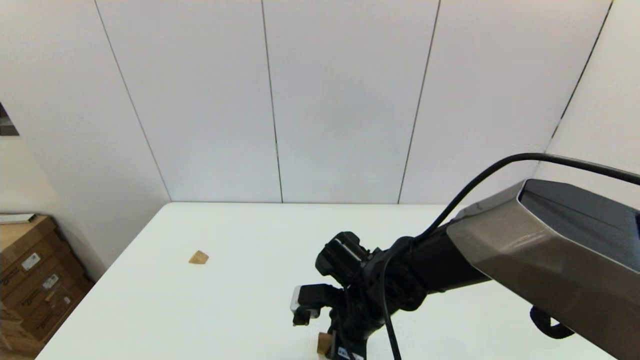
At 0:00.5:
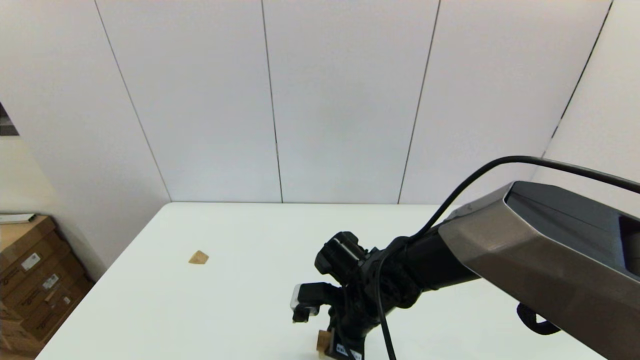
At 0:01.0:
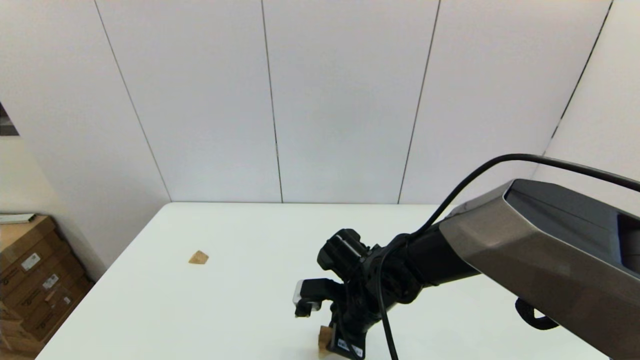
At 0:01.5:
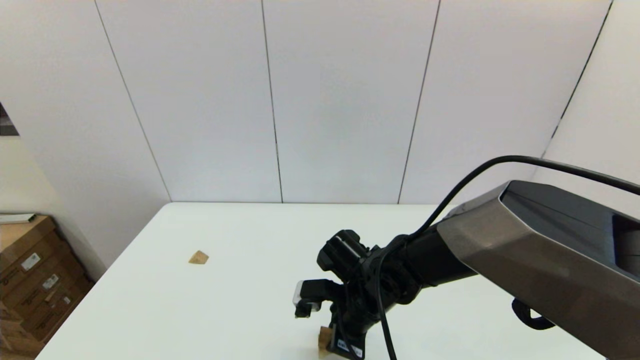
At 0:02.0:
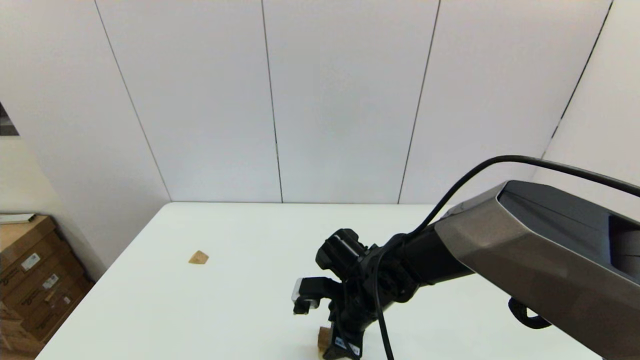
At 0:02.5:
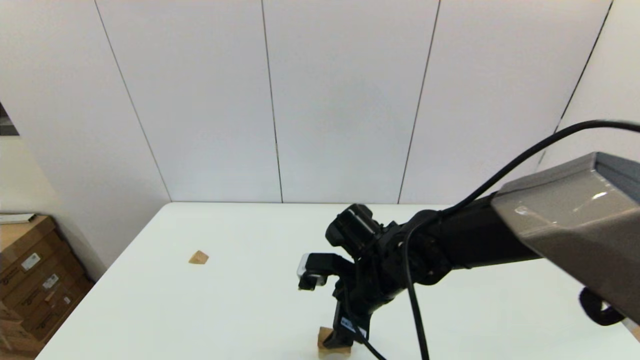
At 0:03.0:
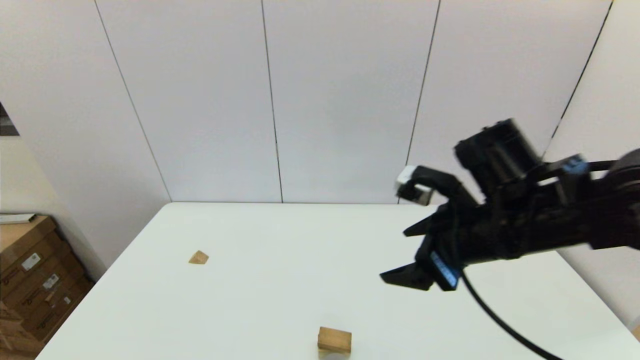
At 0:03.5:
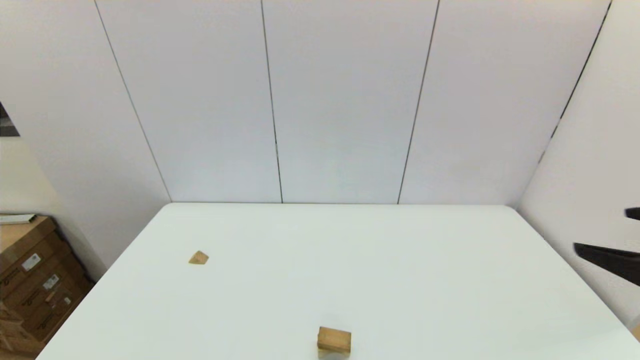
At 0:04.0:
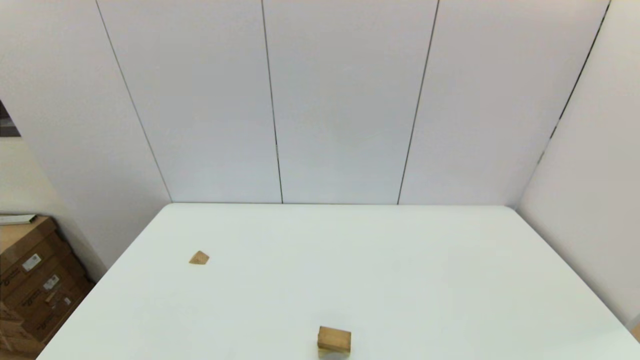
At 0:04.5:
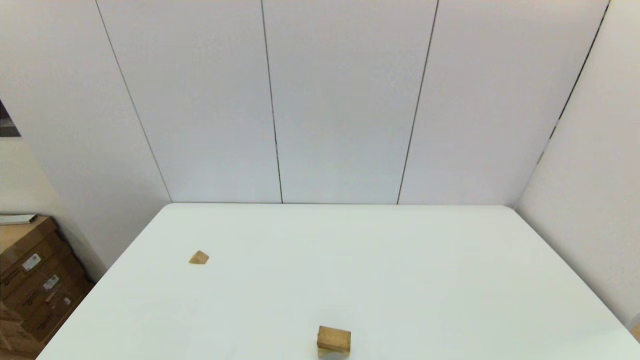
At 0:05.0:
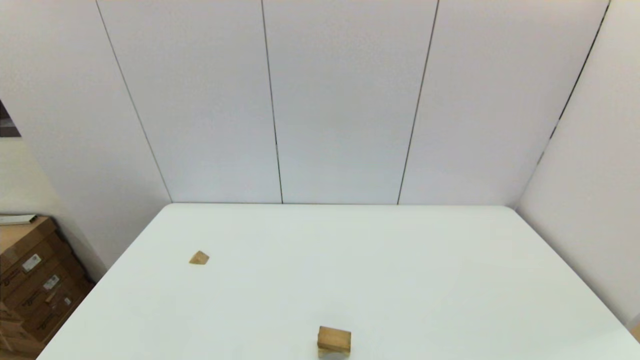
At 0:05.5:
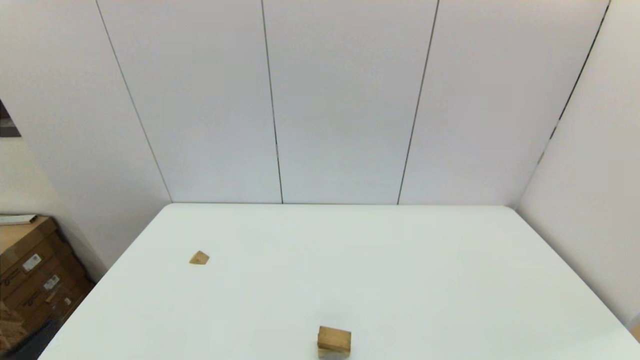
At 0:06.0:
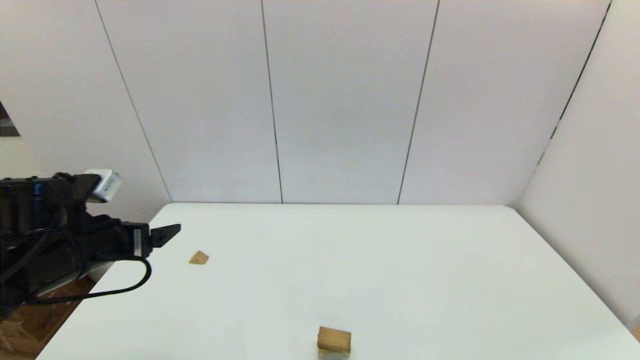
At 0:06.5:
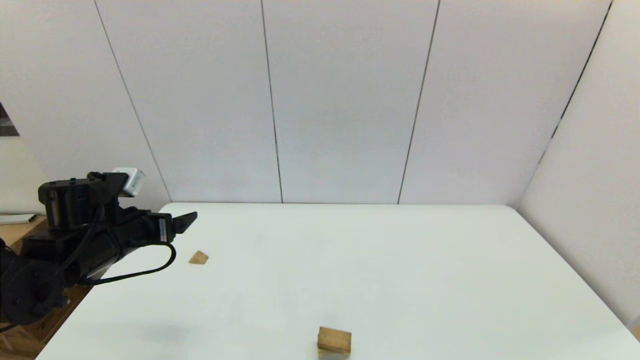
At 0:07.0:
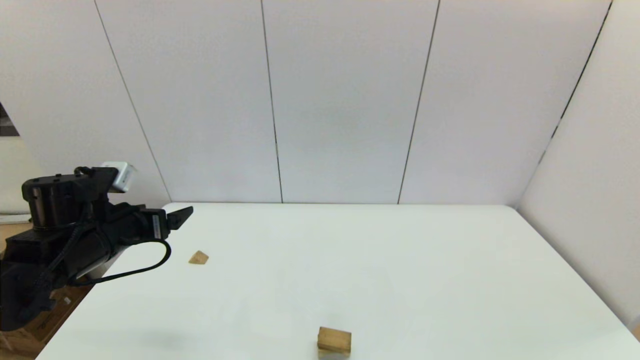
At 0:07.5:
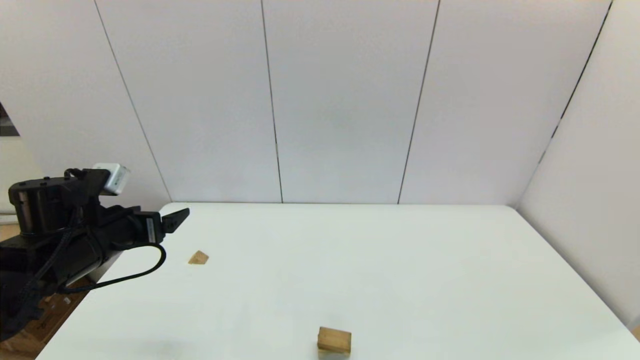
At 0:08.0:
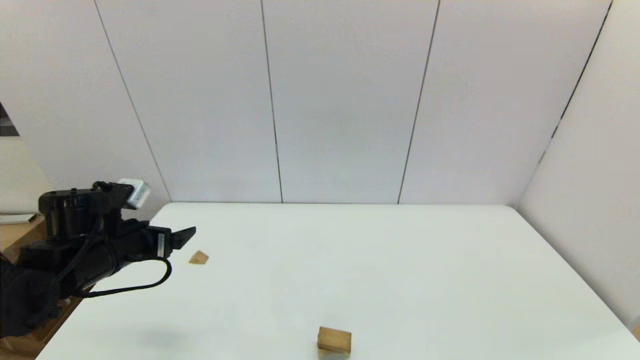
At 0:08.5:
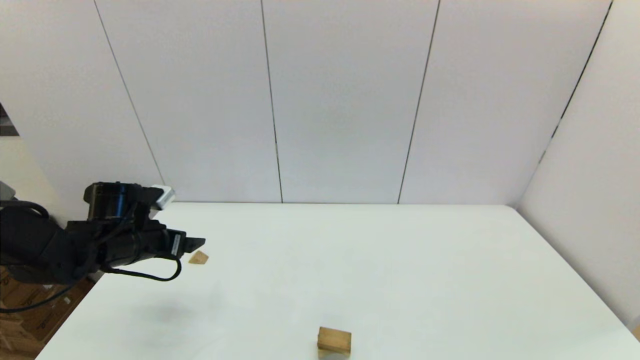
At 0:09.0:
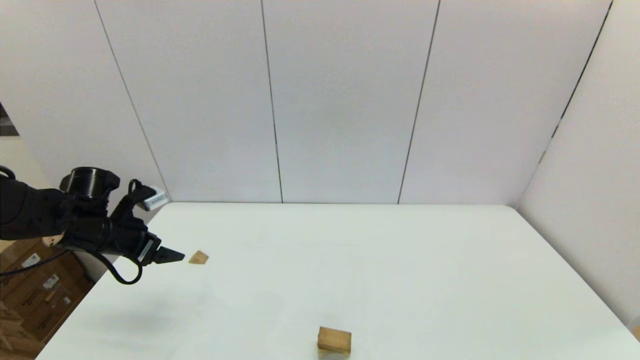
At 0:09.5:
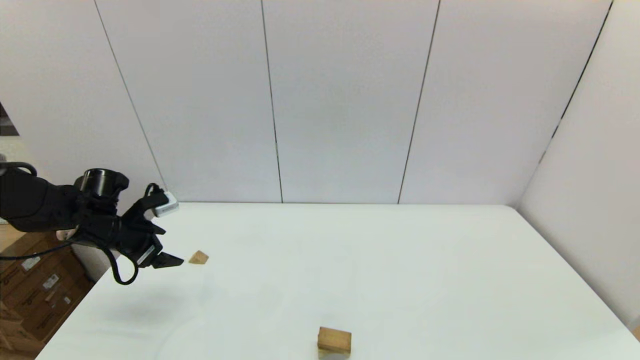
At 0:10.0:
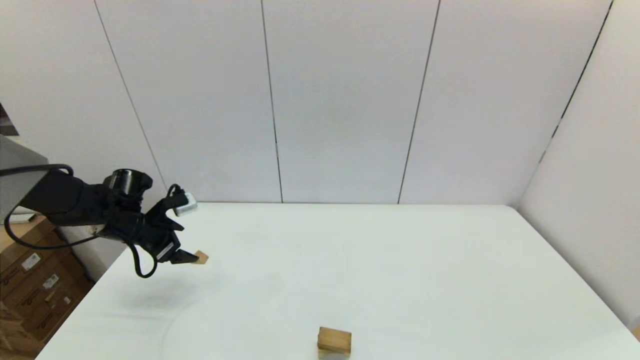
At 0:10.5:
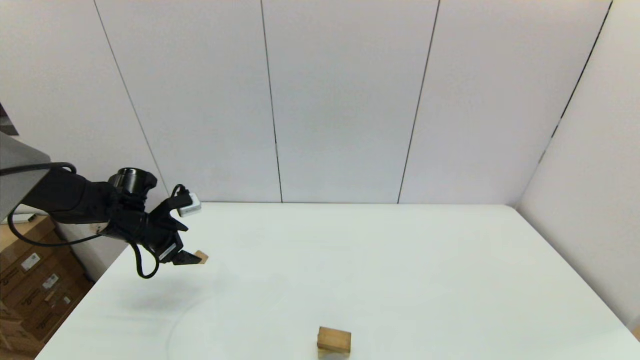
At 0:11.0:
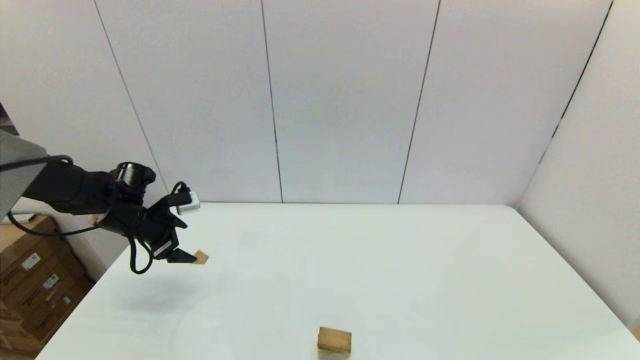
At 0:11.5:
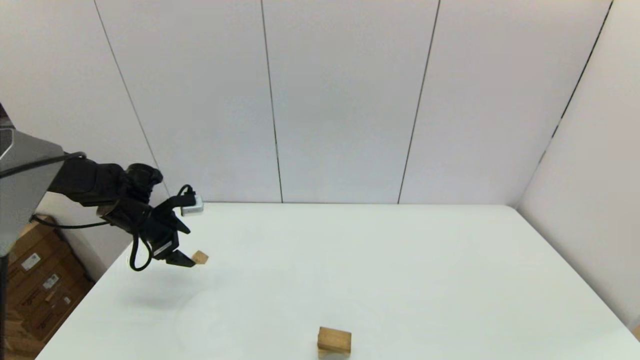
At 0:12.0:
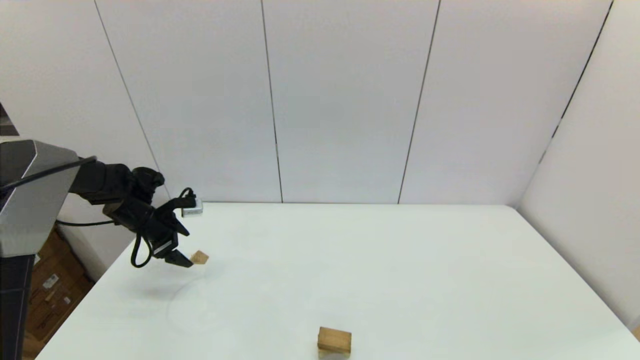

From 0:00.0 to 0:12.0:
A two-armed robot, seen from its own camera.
Task of the whole recording: place the arched building blocks in the center of the table, set up the rectangular building blocks, and then set up the triangular building blocks.
From 0:00.0 to 0:02.0: The right gripper opens.
From 0:02.0 to 0:04.0: The right gripper travels backward, to the right and upward by roughly 40 cm, and opens up.
From 0:04.0 to 0:06.0: The left gripper shifts approximately 25 cm forward.
From 0:06.0 to 0:08.0: The left gripper ends up some 5 cm from where it was.
From 0:08.0 to 0:10.0: The left gripper is displaced forward by roughly 10 cm.
From 0:10.0 to 0:12.0: The grippers make only small movements.

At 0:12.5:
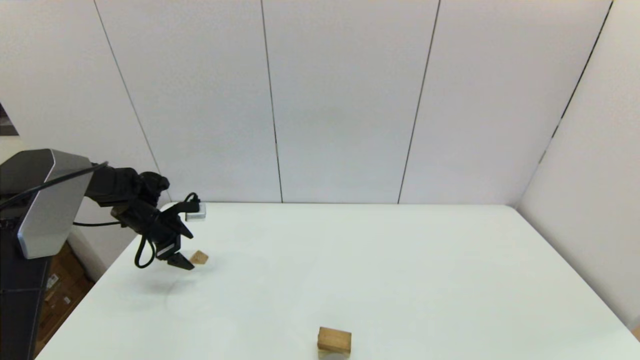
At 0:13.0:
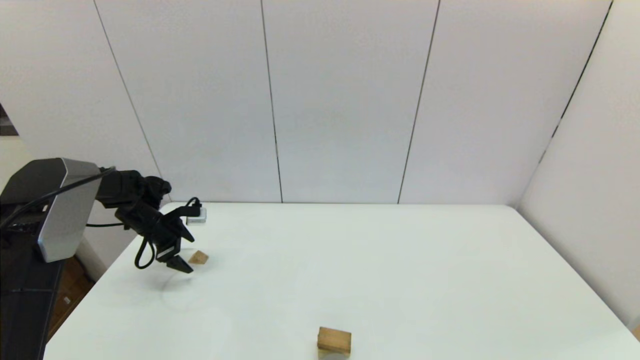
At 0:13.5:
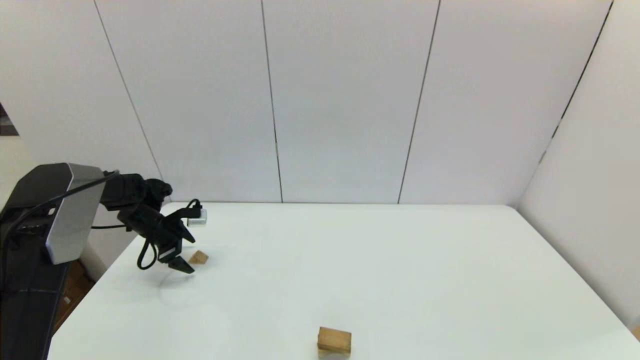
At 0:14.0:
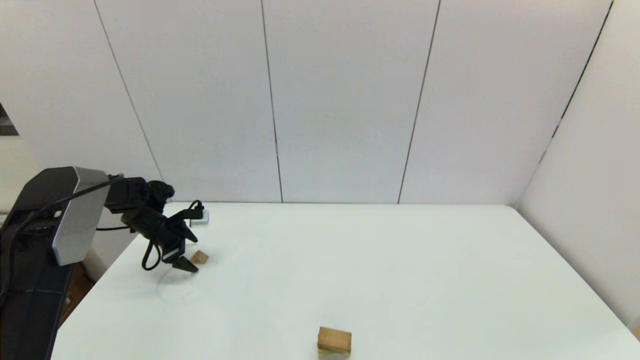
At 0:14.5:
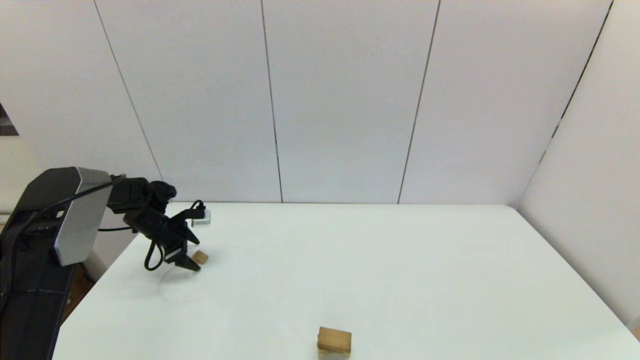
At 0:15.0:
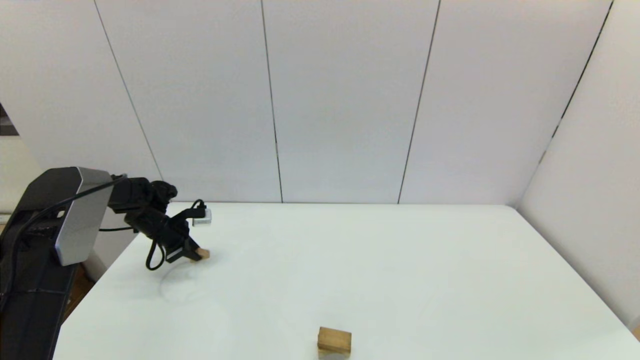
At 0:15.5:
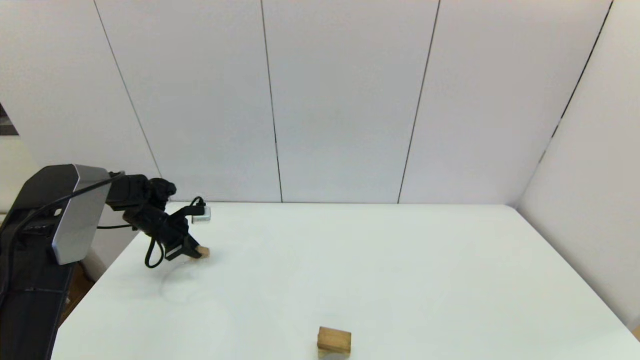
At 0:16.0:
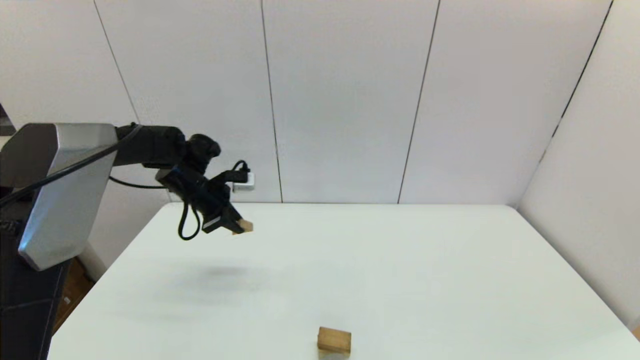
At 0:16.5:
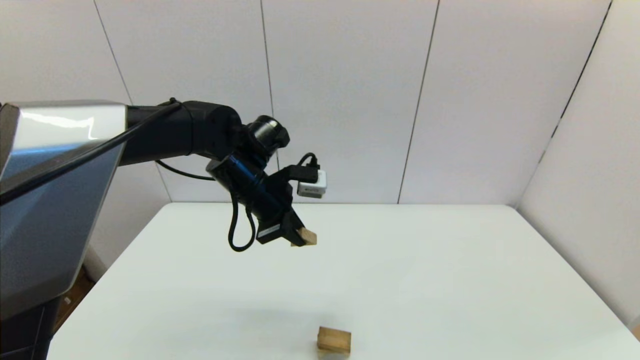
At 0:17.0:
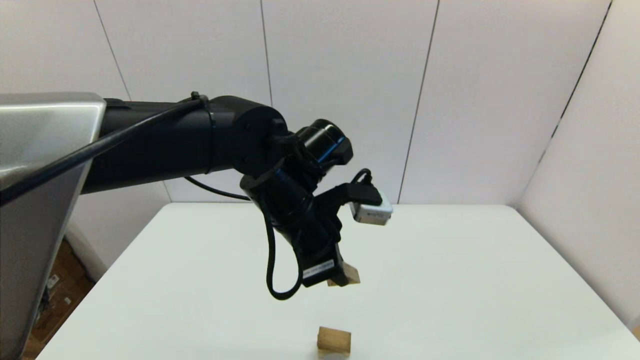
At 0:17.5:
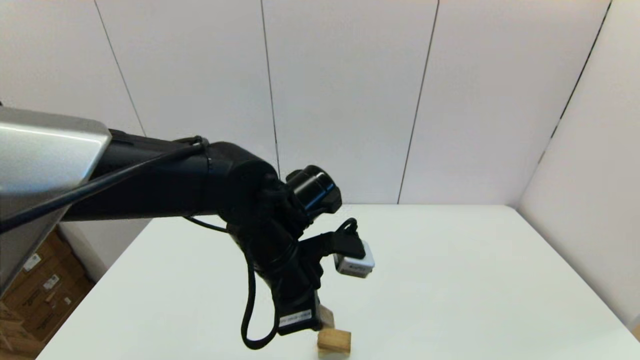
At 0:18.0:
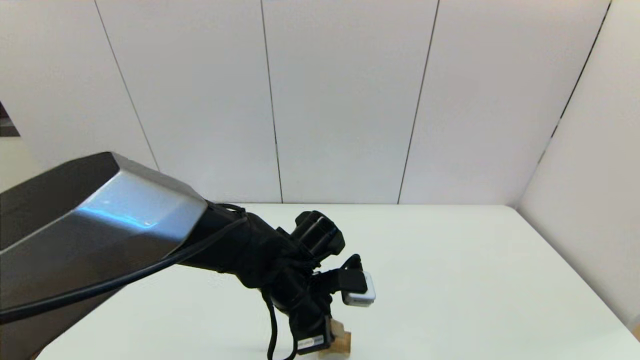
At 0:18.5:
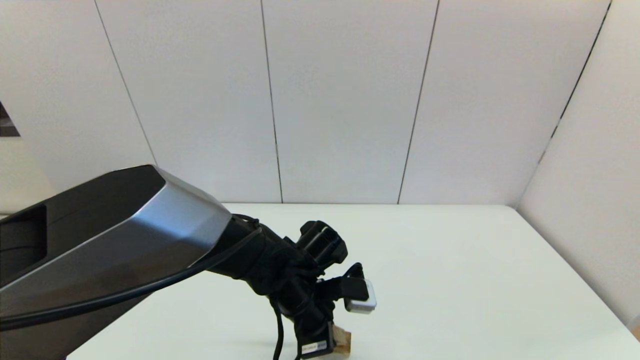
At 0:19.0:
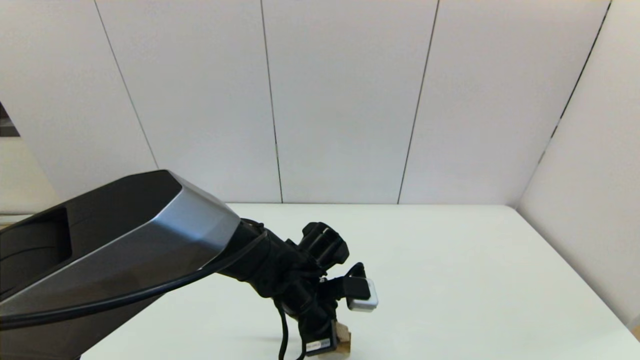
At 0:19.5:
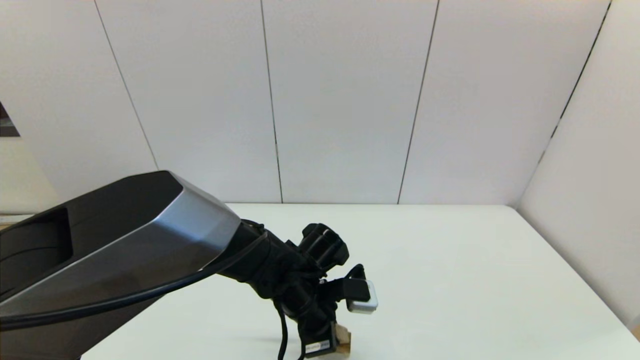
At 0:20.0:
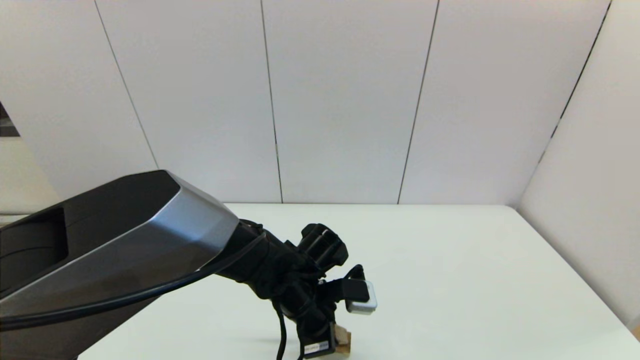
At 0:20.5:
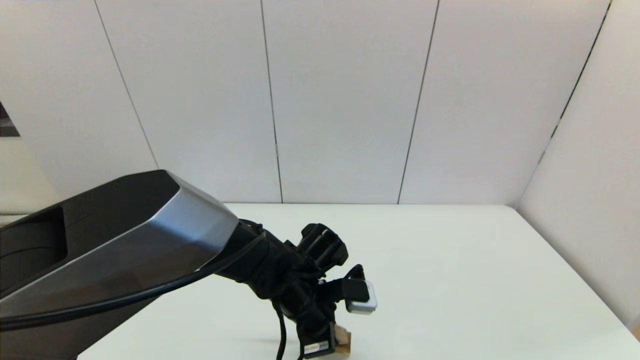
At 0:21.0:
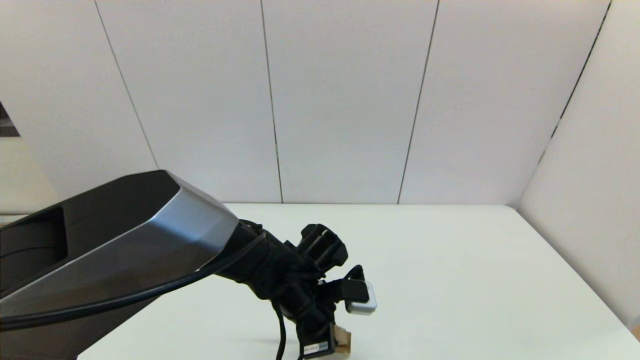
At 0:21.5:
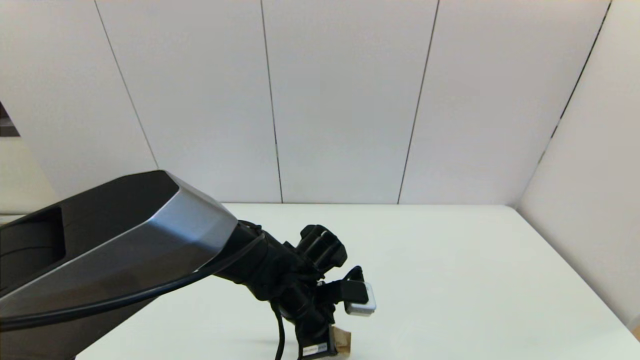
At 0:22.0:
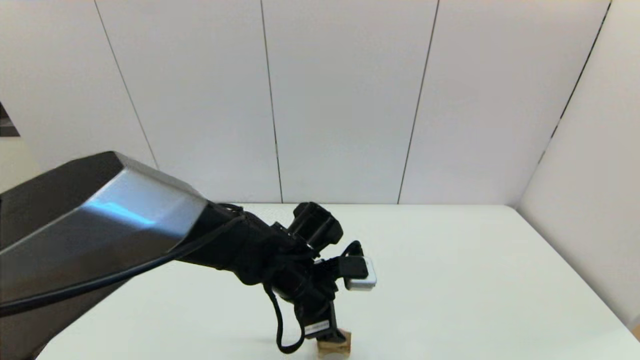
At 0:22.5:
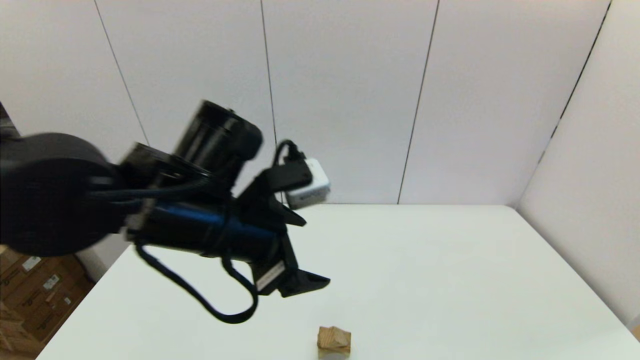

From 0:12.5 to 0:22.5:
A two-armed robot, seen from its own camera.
Task of the whole recording: place the arched building blocks in the center of the table, set up the rectangular building blocks, and then set up the triangular building blocks.
Step, from 0:12.5 to 0:14.5: Grasp the triangle-shaped block with the left gripper.
From 0:12.5 to 0:14.5: The grippers make only small movements.
From 0:14.5 to 0:16.5: The left gripper travels to the right, upward and backward by some 35 cm, and closes.
From 0:16.5 to 0:18.5: The left gripper heads downward, backward and to the right, covering roughly 20 cm.
From 0:18.5 to 0:20.5: Both grippers stay put.
From 0:20.5 to 0:22.5: The left gripper travels upward and to the left by approximately 20 cm, and opens up.
